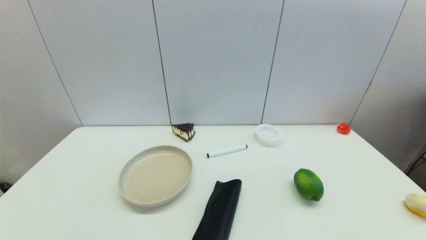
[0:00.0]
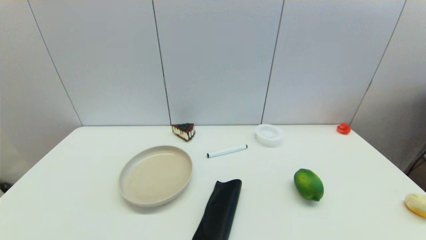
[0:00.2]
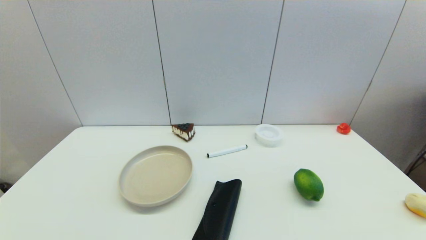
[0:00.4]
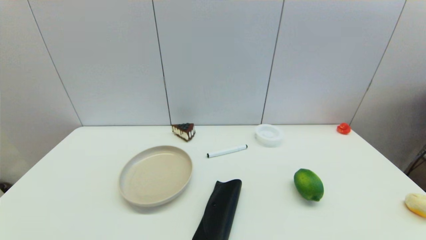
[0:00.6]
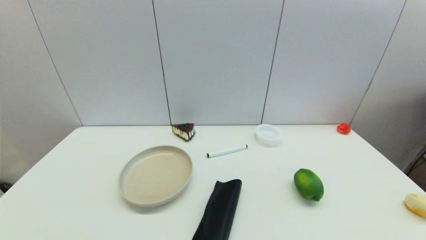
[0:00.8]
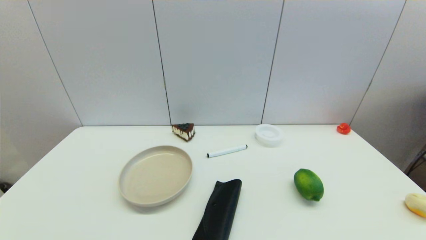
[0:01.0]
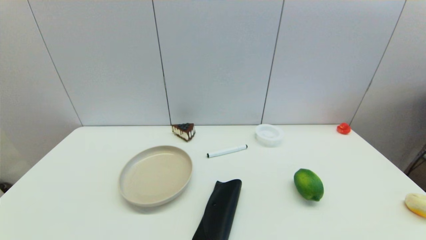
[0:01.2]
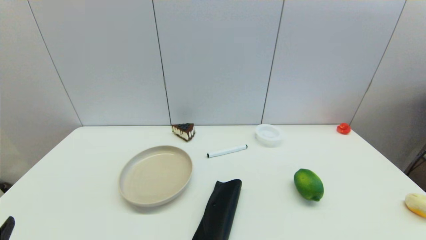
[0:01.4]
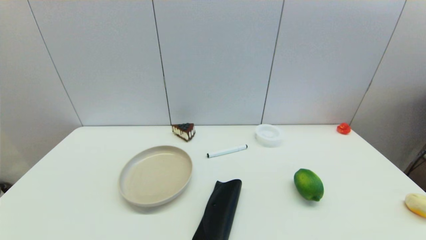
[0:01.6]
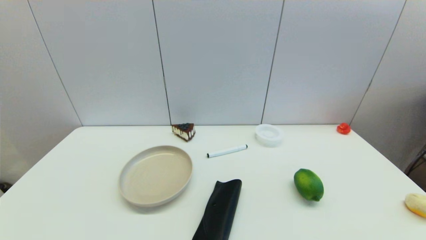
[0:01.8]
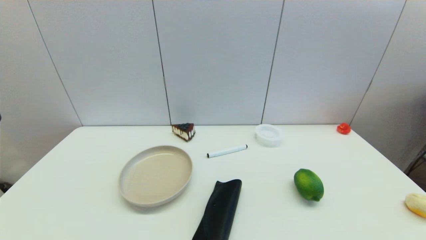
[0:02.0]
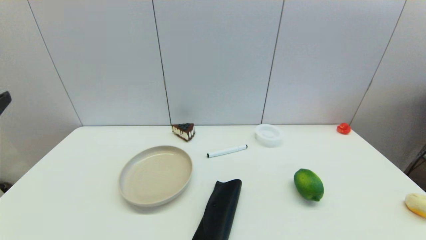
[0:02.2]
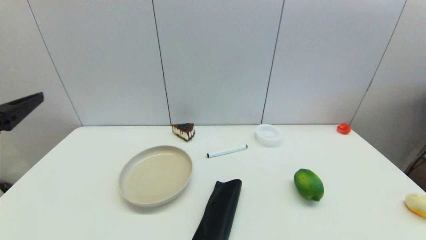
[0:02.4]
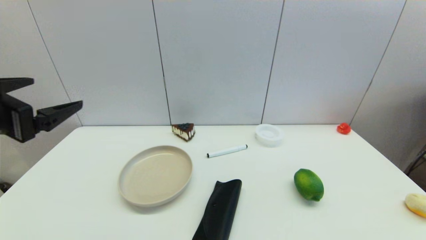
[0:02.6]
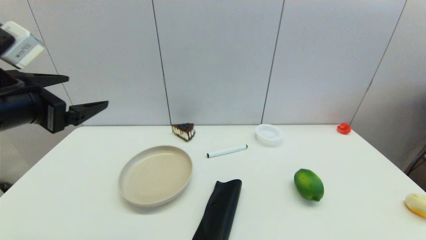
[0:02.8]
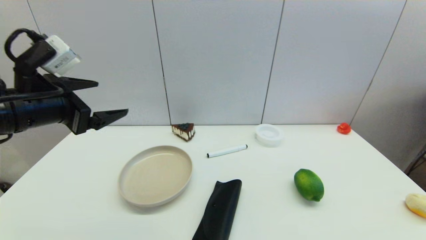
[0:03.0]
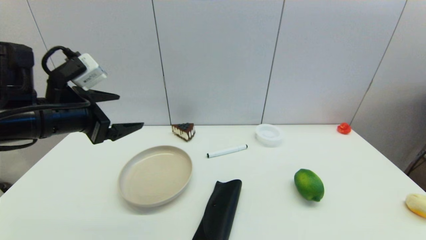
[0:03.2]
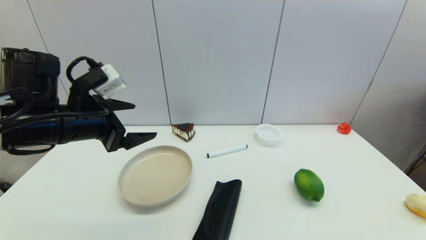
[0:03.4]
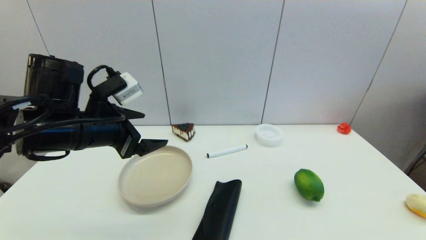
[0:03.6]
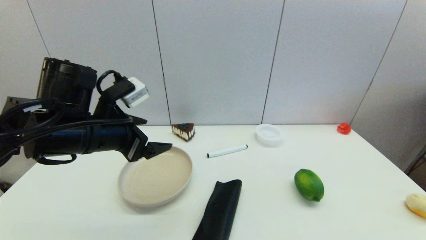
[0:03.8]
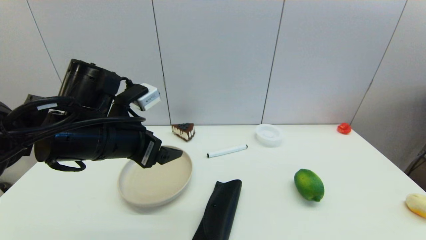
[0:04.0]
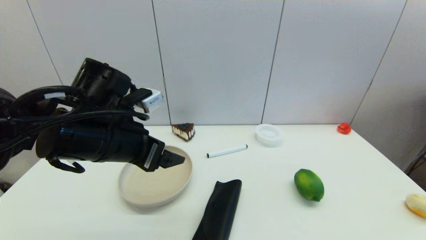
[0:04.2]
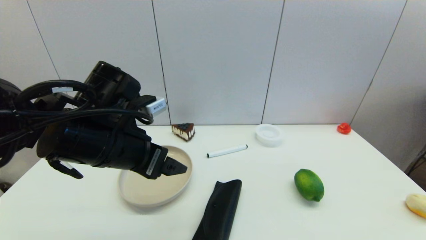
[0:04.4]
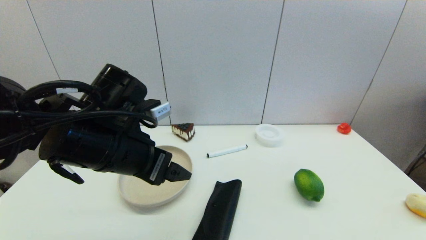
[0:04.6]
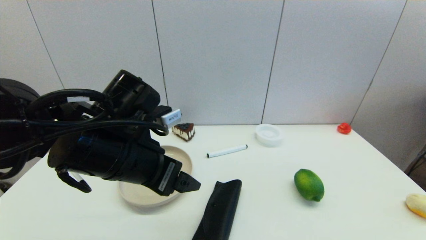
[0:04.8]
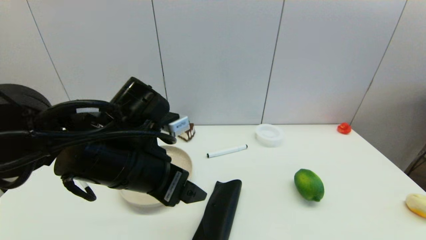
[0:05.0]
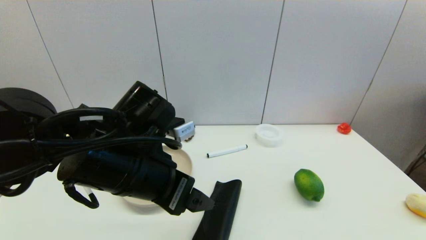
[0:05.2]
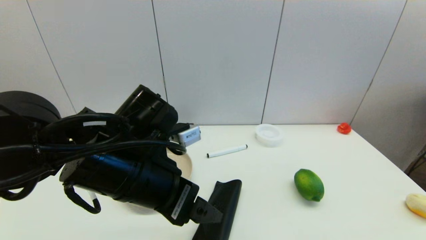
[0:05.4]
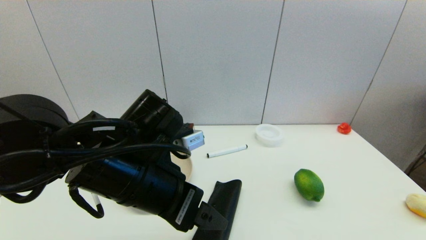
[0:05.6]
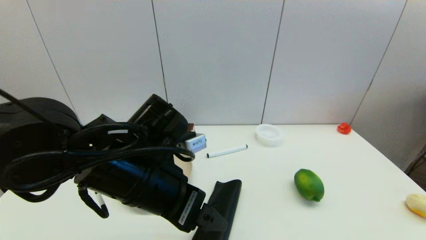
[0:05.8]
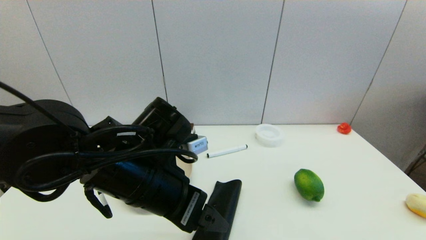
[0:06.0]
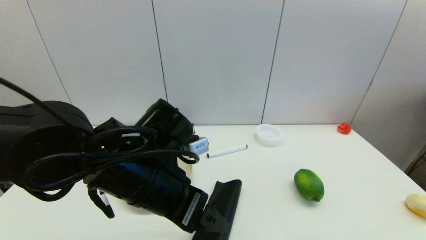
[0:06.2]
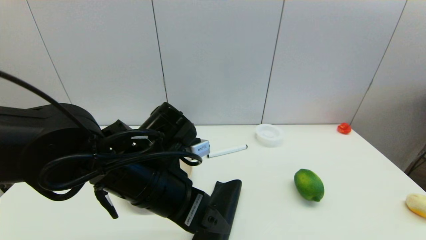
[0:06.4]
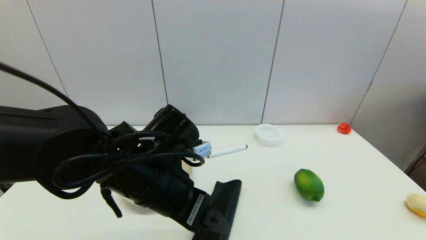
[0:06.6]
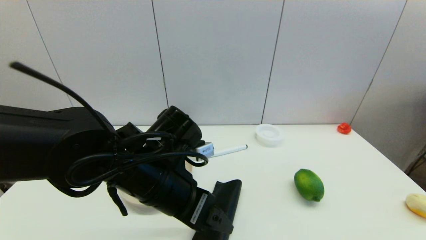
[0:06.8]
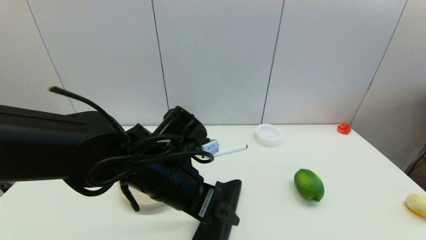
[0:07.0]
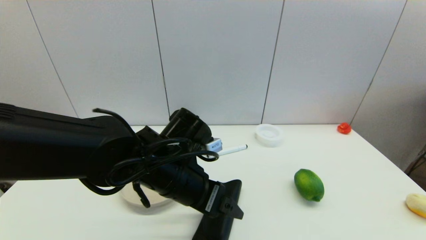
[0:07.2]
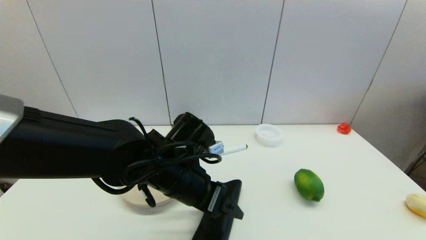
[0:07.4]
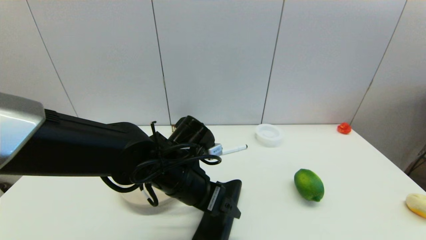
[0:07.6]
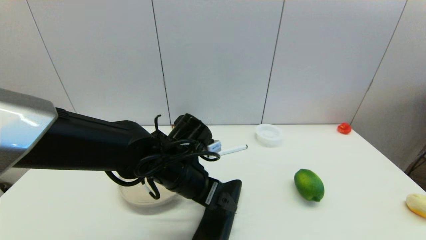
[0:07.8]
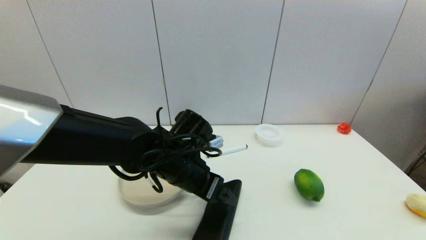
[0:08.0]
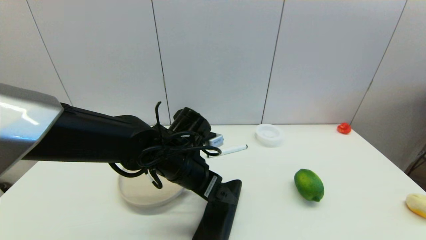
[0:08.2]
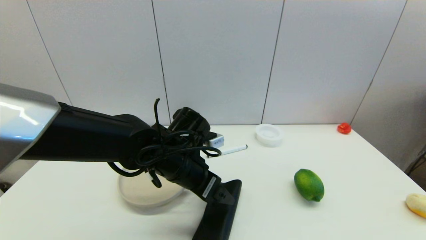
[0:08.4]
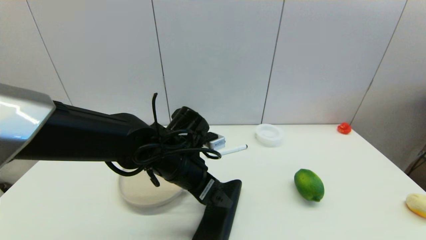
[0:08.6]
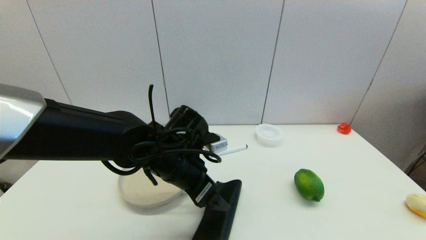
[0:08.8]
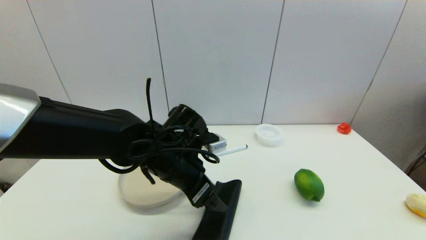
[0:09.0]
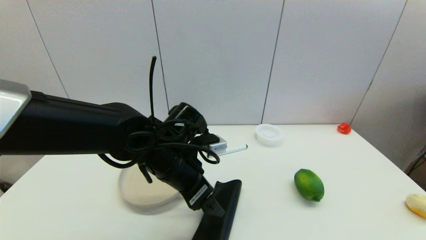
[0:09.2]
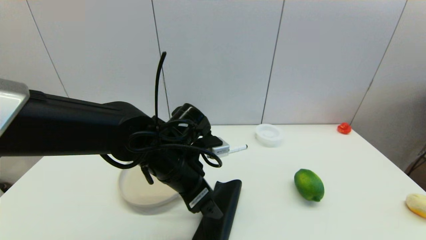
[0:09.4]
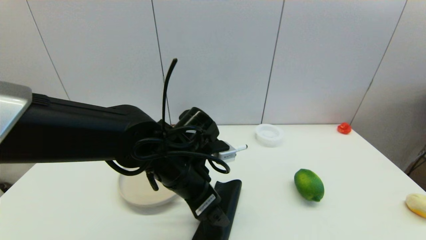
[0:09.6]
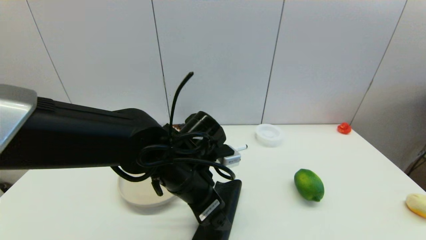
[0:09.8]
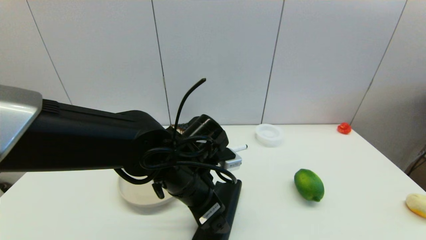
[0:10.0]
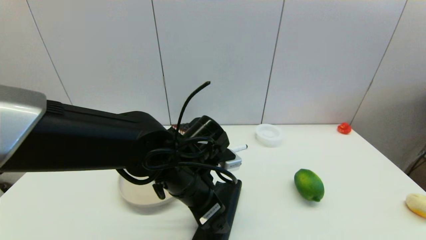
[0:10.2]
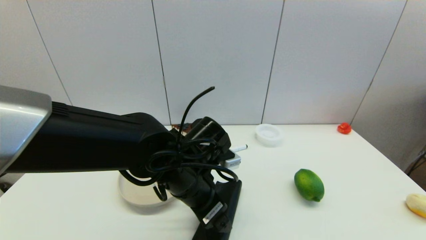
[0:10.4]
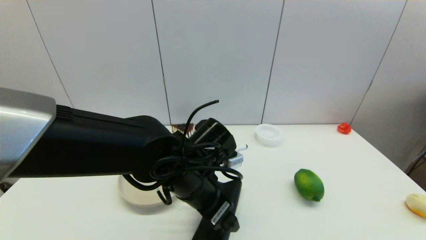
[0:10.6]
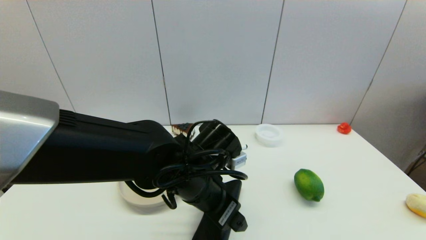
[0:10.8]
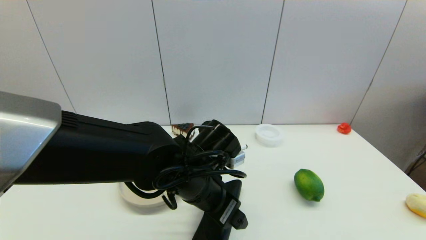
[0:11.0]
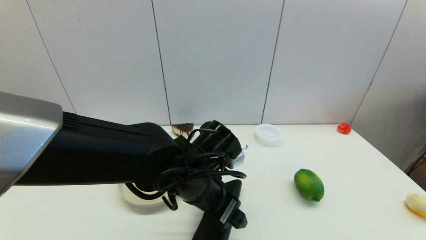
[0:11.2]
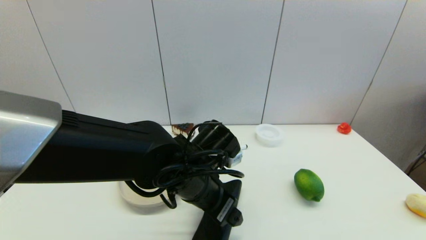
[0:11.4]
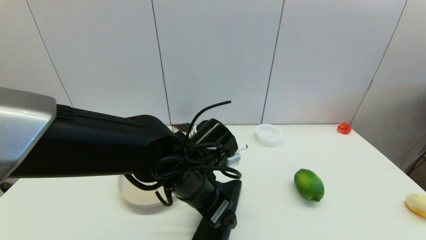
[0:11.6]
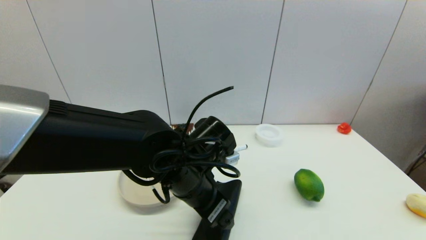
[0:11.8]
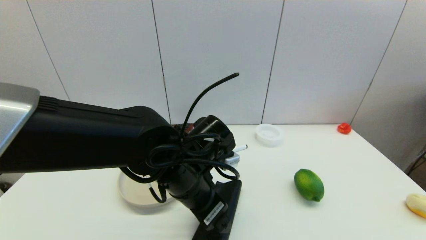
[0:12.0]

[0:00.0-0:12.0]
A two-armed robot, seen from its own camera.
0:01.6 to 0:03.0: The left gripper moves forward and upward, roughly 25 cm.
0:03.0 to 0:04.4: The left gripper shifts approximately 10 cm to the right.
0:04.4 to 0:06.0: The left gripper heads to the right, covering approximately 5 cm.
0:06.0 to 0:07.6: The left gripper heads downward and forward, covering about 10 cm.
0:09.0 to 0:12.0: The grippers move only a little.

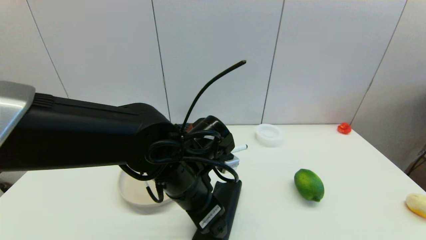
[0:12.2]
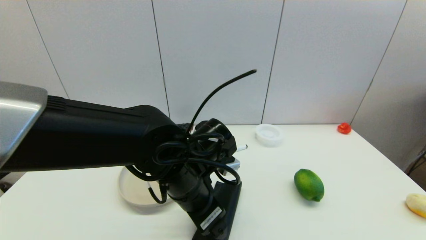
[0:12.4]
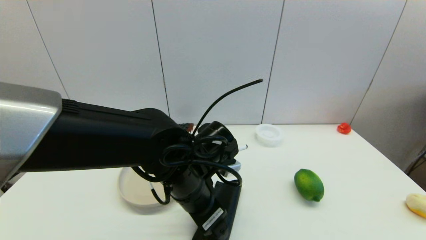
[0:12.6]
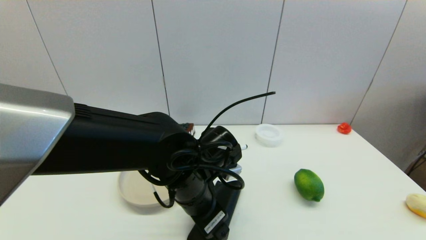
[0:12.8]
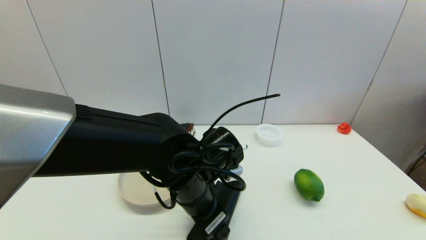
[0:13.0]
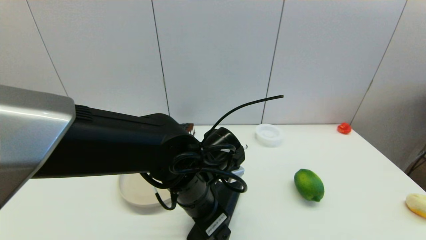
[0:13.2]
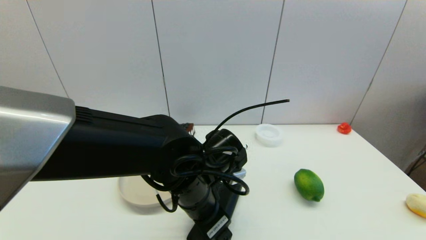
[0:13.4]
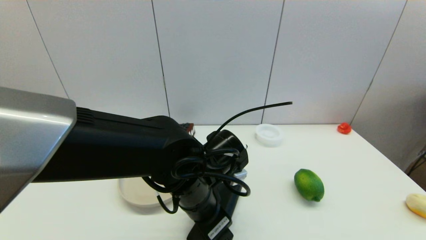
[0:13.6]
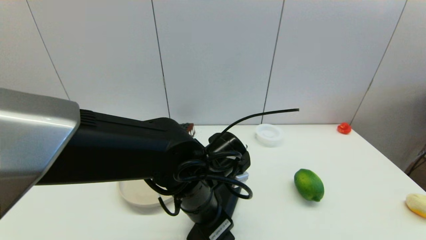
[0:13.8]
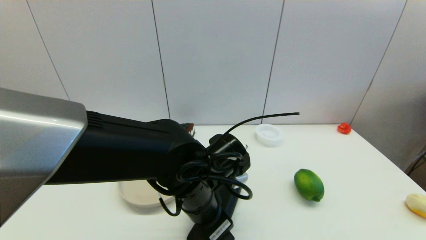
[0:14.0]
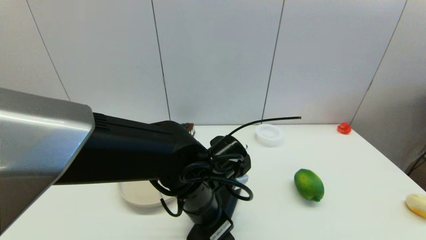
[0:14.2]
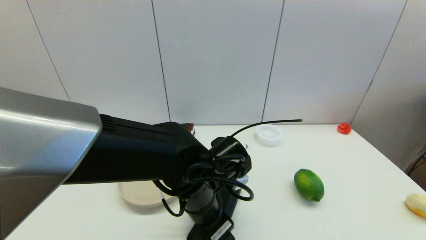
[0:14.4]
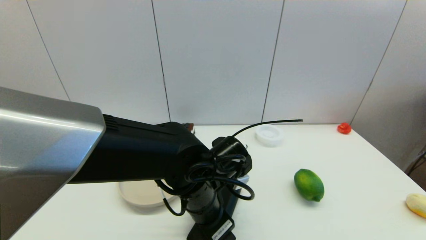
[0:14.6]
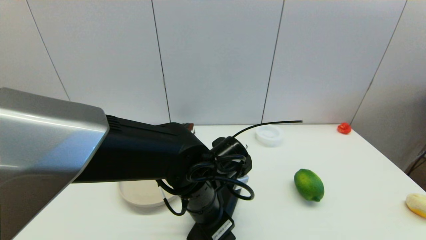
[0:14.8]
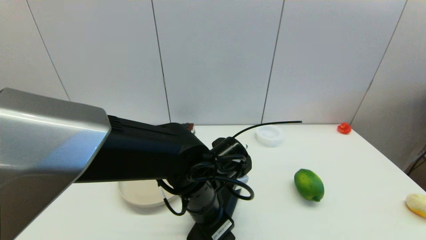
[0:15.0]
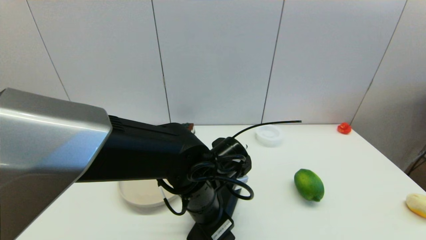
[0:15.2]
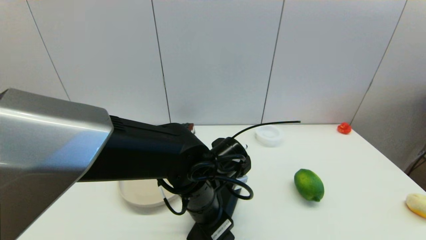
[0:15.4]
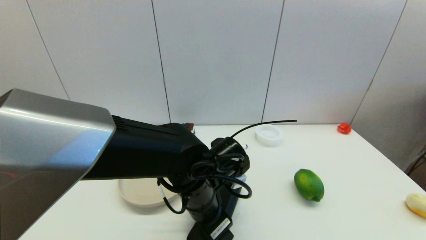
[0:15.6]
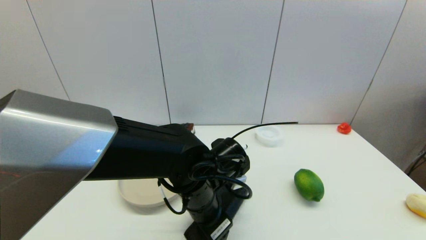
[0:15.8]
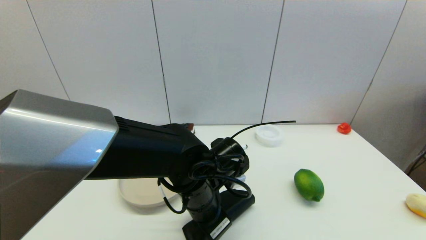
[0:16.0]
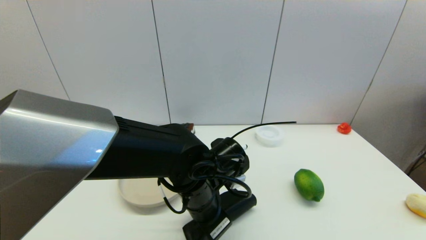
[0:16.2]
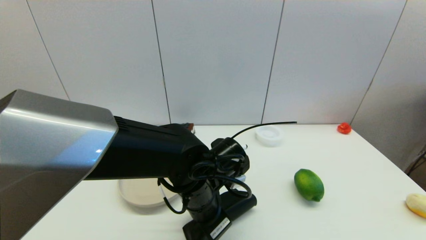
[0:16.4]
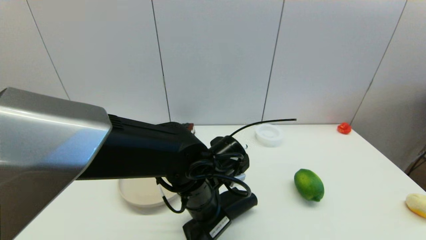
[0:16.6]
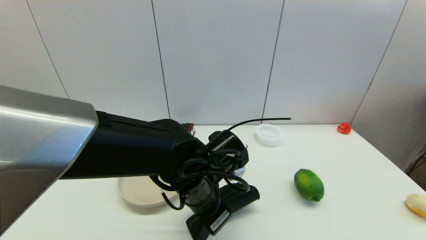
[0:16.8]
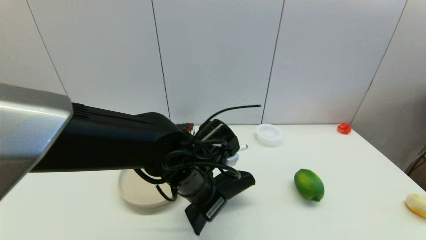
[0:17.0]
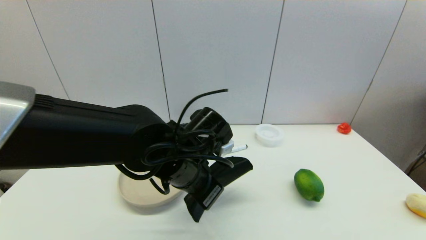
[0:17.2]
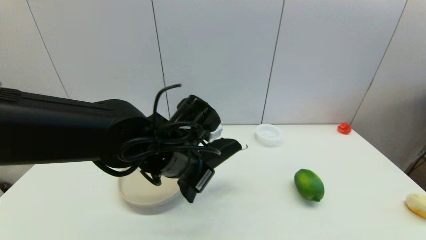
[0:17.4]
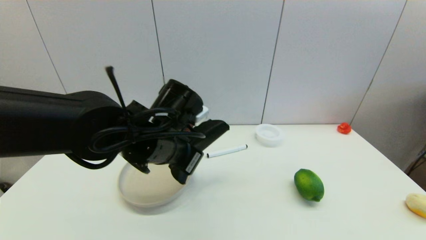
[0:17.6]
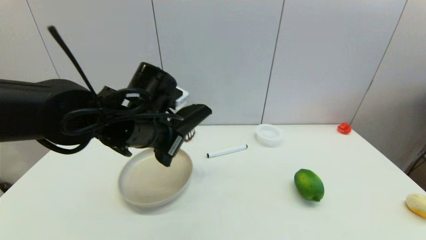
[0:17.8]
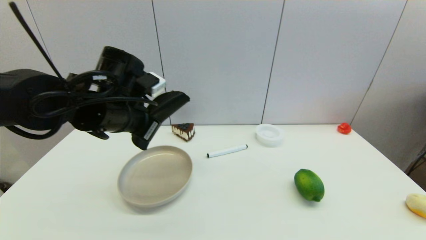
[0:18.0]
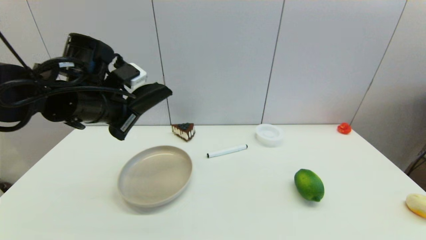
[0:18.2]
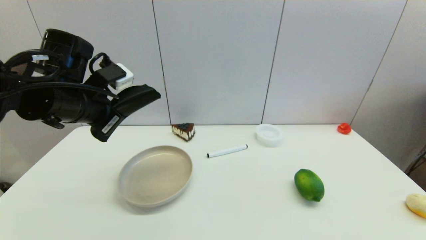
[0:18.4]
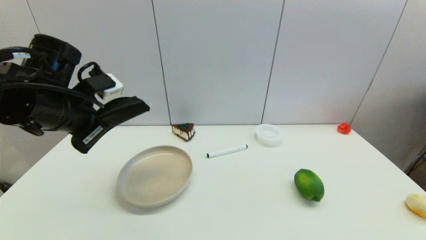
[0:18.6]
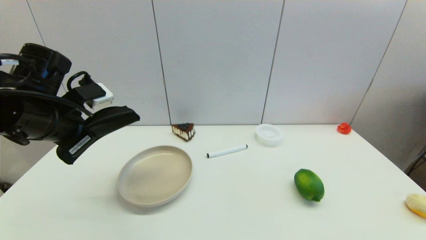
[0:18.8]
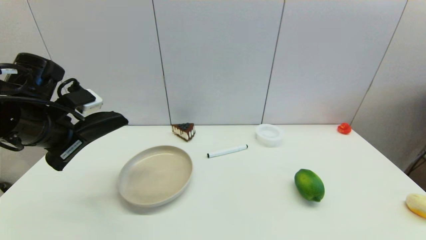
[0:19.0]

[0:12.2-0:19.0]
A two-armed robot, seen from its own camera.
Step, 0:12.2 to 0:16.6: Grasp the glasses case with left gripper.
0:12.2 to 0:15.0: The grippers make only small movements.
0:15.0 to 0:16.2: The left gripper closes up.
0:16.2 to 0:17.6: The left gripper is displaced upward and to the left by approximately 10 cm.
0:17.6 to 0:19.0: The left gripper is displaced to the left by some 20 cm.
